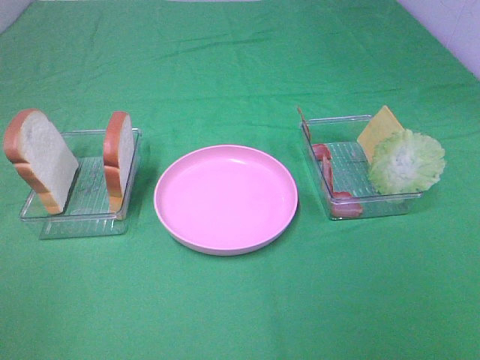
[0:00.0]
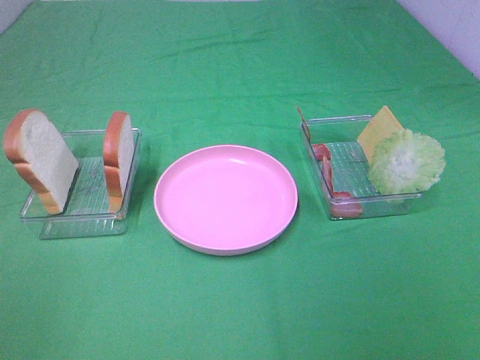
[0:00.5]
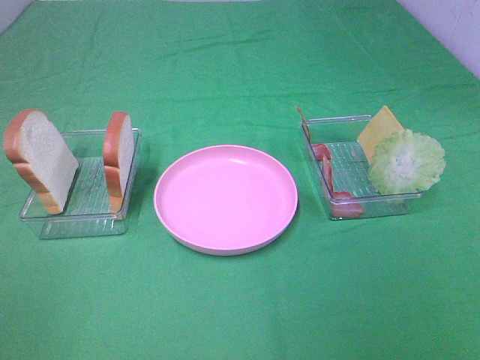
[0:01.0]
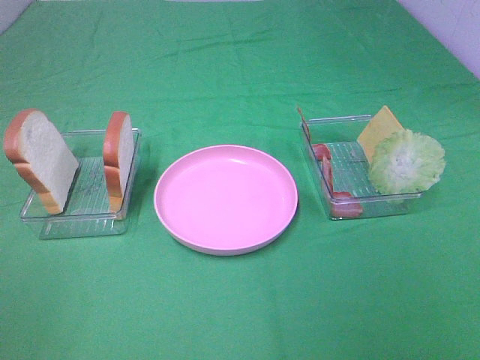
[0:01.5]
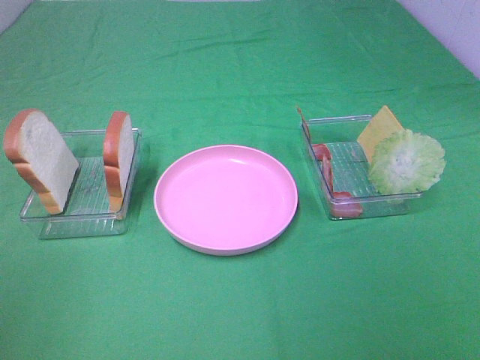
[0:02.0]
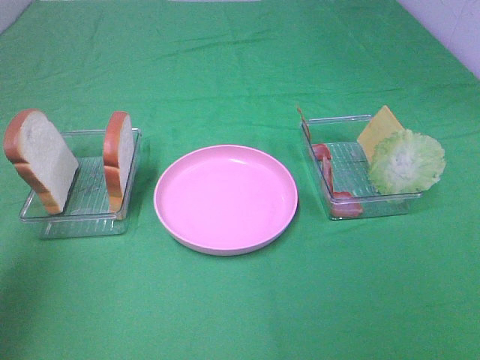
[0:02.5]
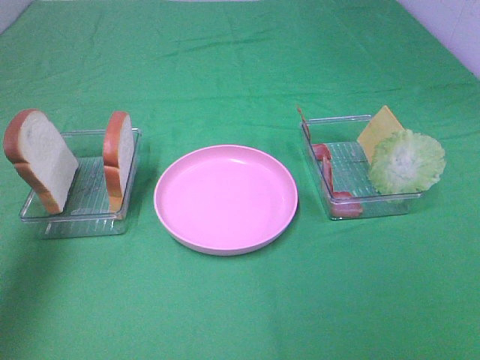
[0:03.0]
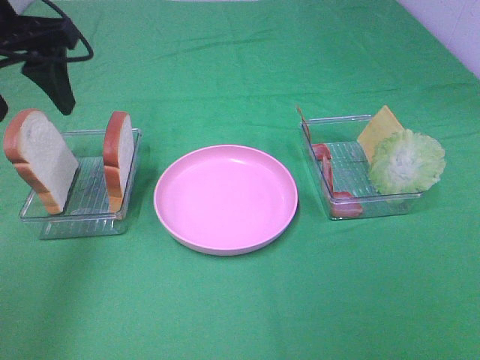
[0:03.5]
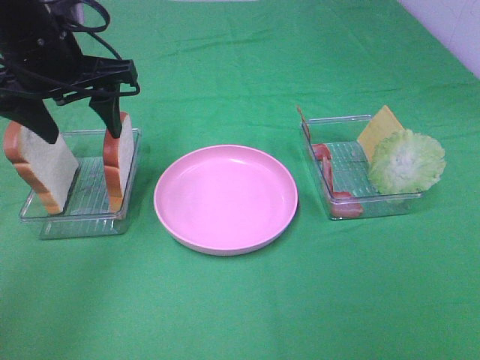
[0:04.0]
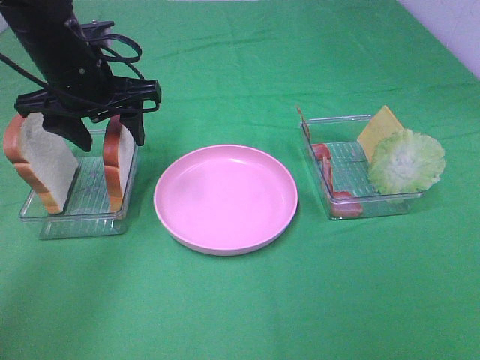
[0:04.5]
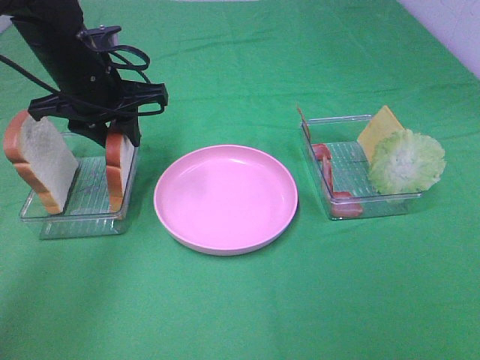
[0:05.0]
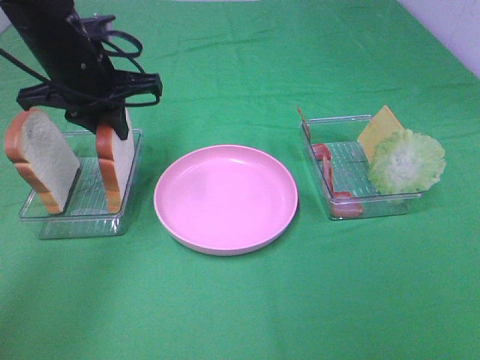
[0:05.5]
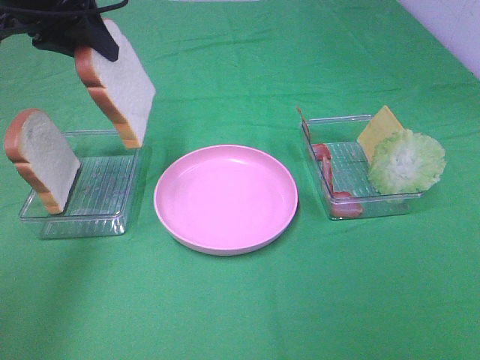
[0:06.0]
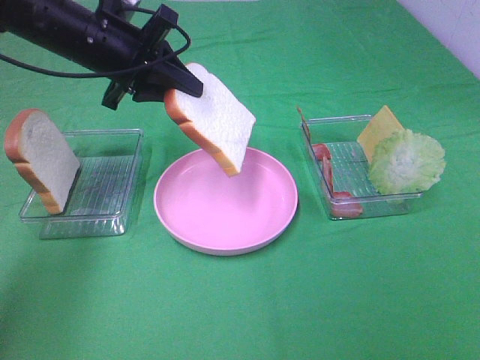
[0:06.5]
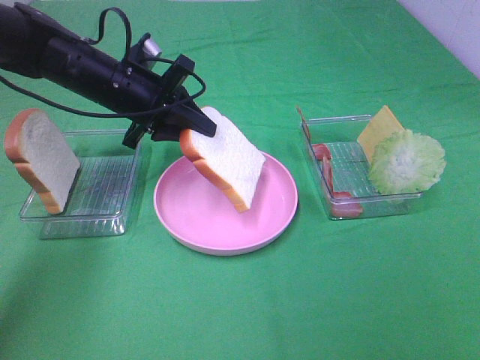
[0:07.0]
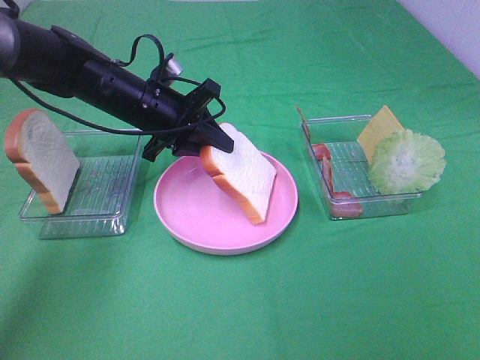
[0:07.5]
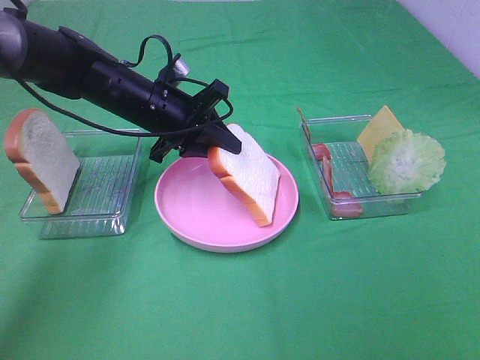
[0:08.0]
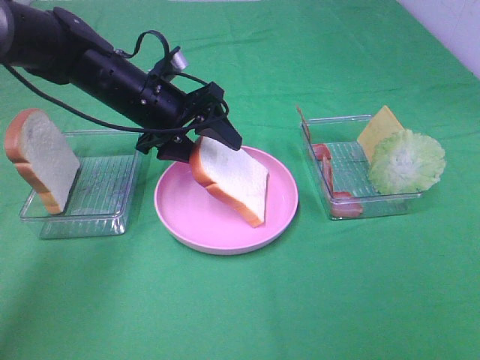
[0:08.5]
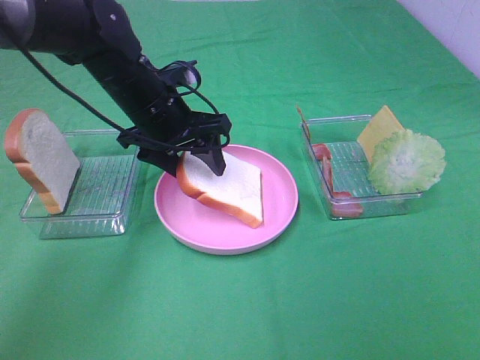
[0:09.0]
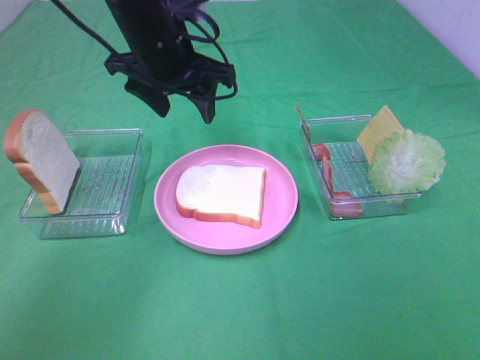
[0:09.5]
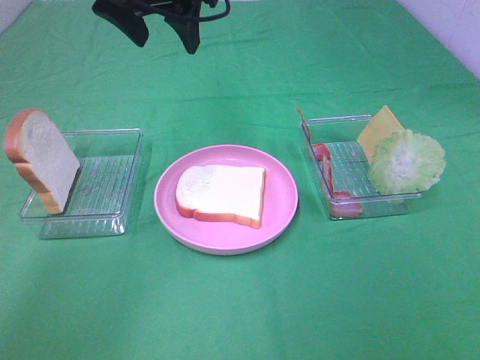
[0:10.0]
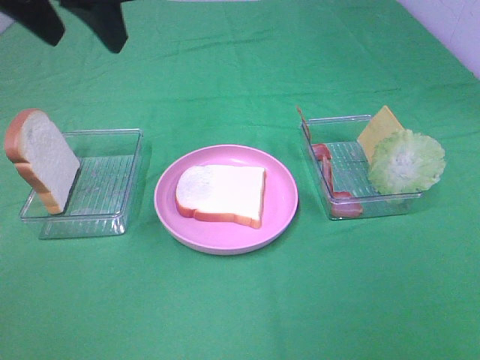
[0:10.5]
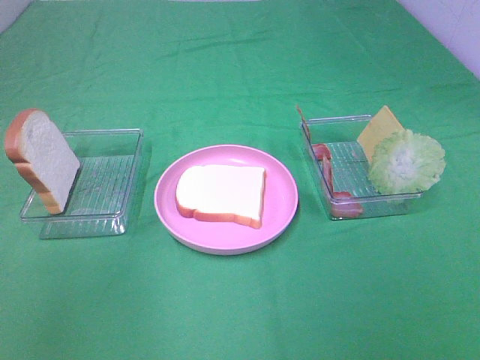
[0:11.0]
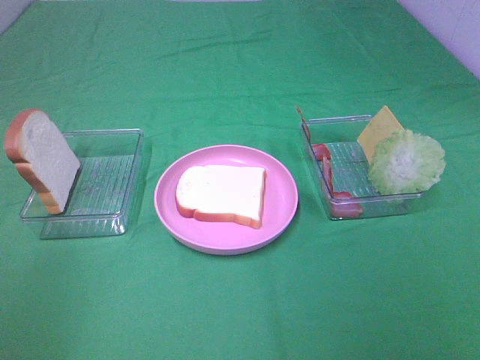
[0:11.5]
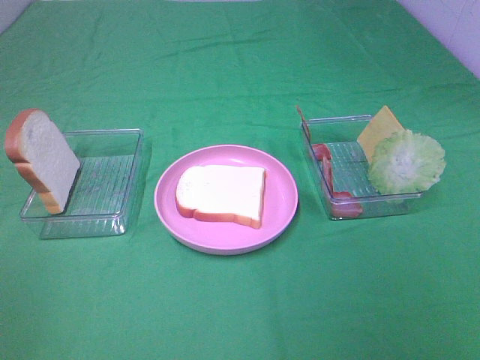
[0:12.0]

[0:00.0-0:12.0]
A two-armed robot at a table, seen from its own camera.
Task of the whole recording: Make sandwiches.
Step, 0:00.0 to 0:05.0: Left hand:grab the bread slice.
Step, 0:05.5 to 0:09.0: Left hand:place the bread slice on the plate.
0:02.0 to 0:04.0: The left gripper shifts some 30 cm forward.
0:04.0 to 0:06.0: The left gripper shifts approximately 5 cm upward, and closes.
0:06.0 to 0:08.0: The left gripper goes about 20 cm downward and to the right.
0:08.0 to 0:10.0: The left gripper moves upward, approximately 20 cm, and opens.
0:10.0 to 0:12.0: The left gripper is displaced backward and to the left by approximately 40 cm.

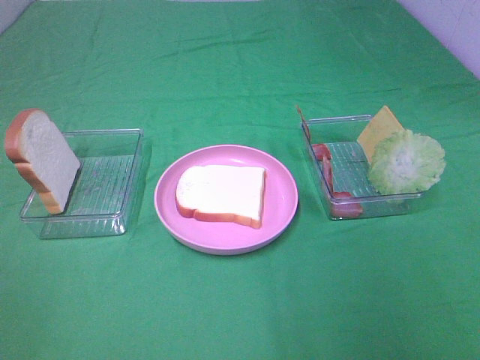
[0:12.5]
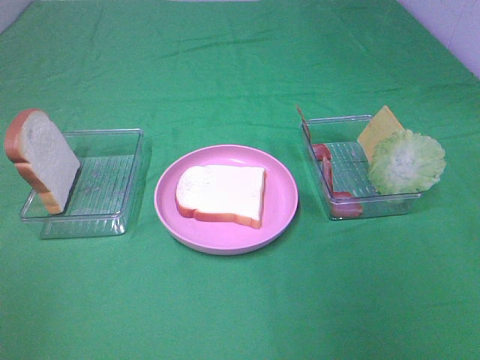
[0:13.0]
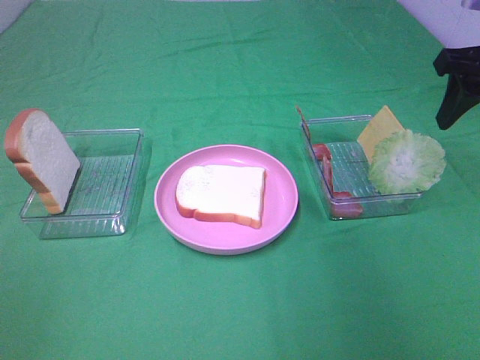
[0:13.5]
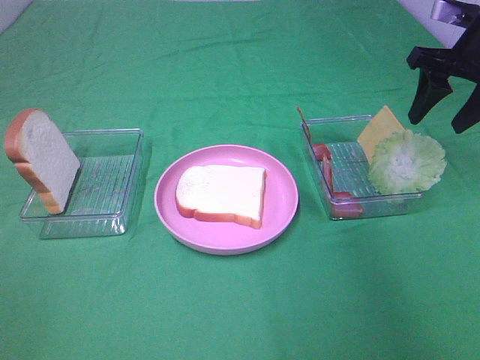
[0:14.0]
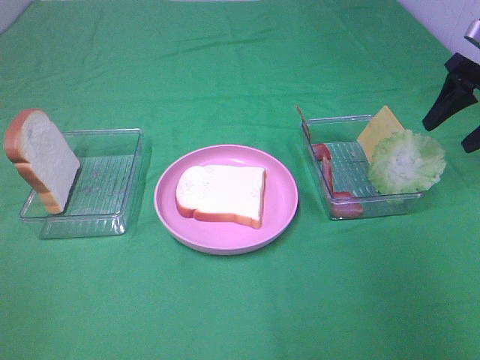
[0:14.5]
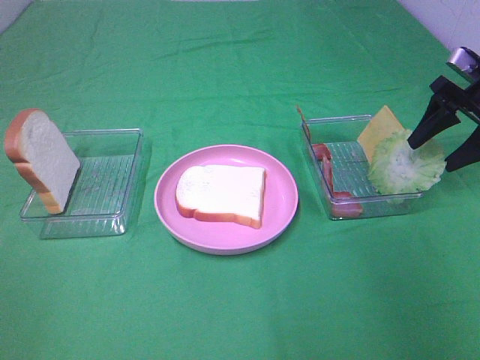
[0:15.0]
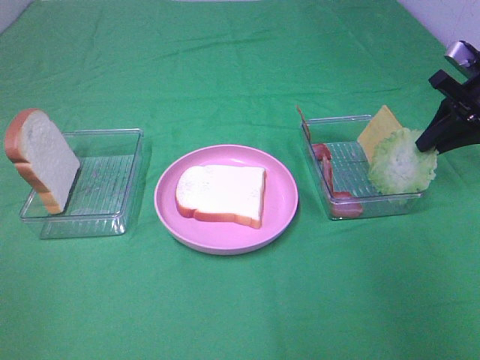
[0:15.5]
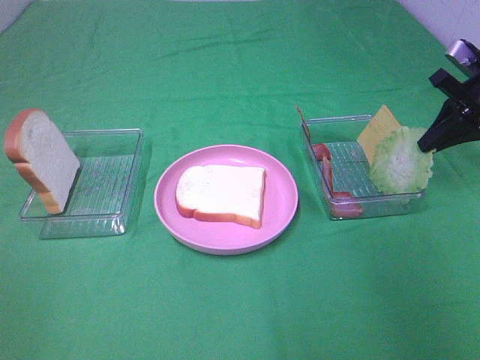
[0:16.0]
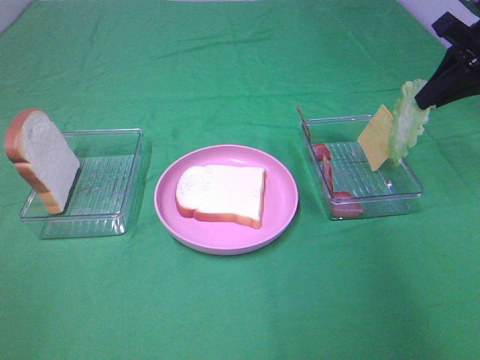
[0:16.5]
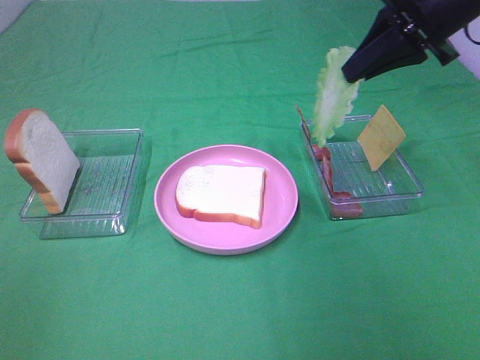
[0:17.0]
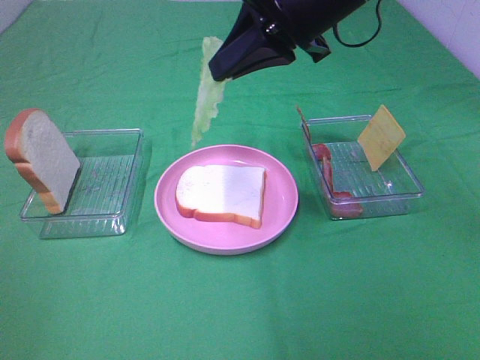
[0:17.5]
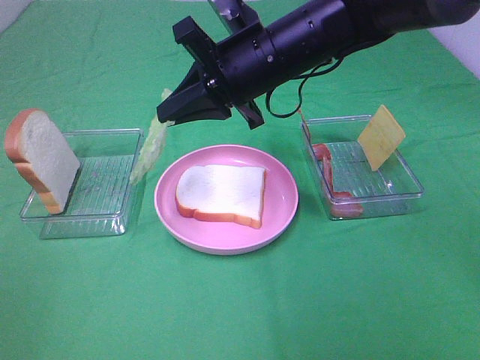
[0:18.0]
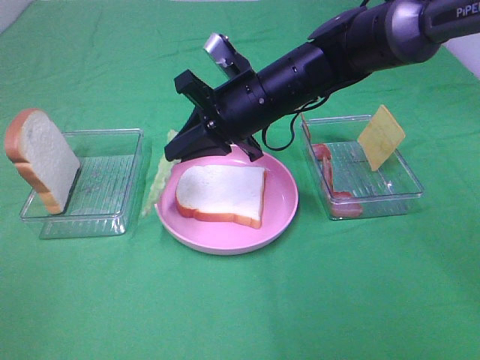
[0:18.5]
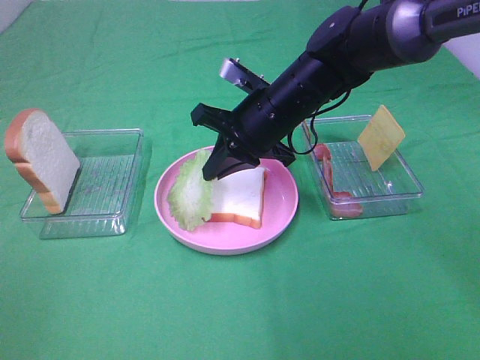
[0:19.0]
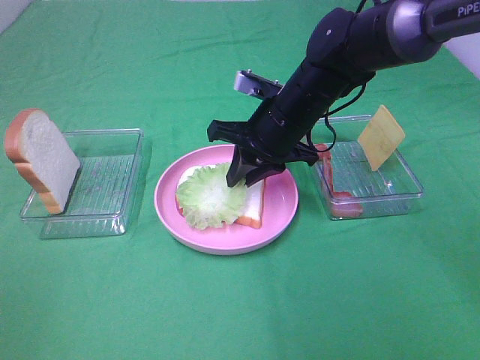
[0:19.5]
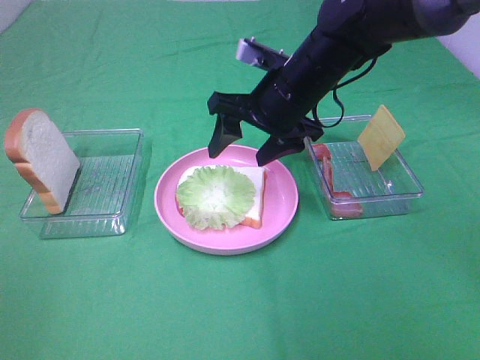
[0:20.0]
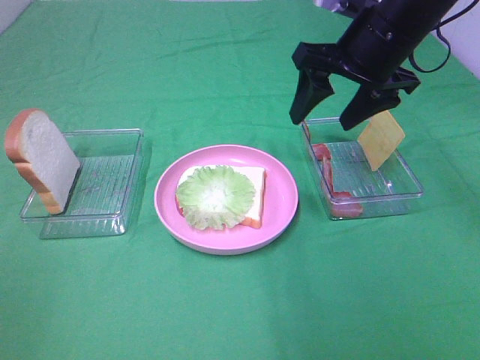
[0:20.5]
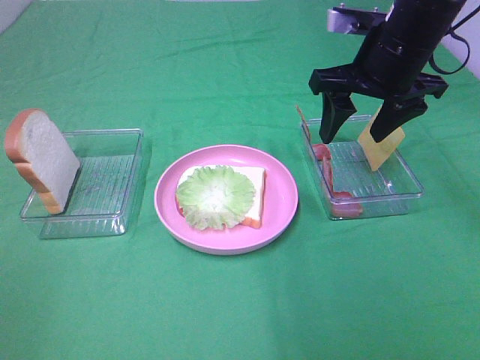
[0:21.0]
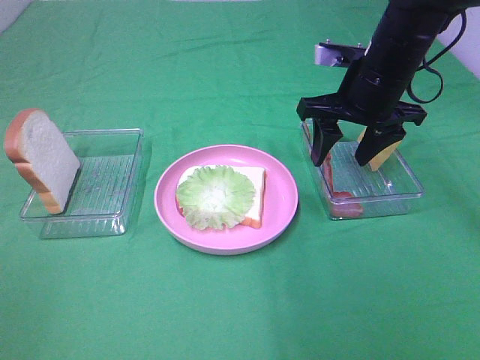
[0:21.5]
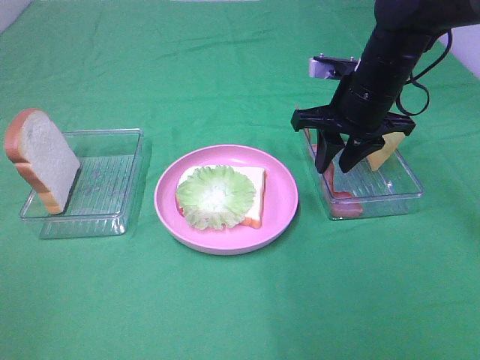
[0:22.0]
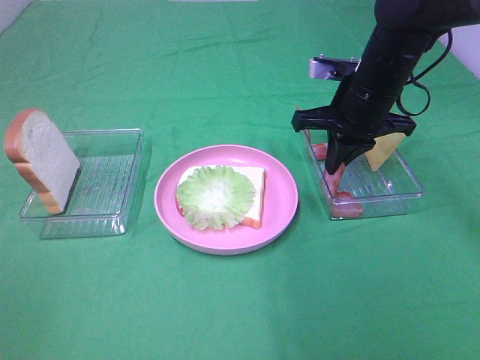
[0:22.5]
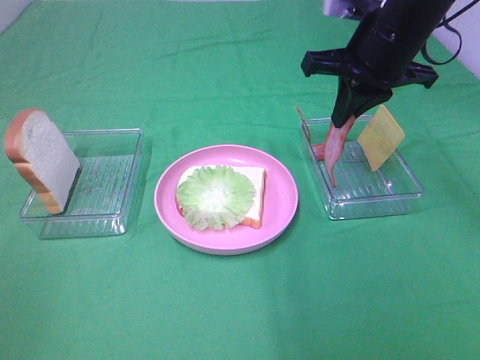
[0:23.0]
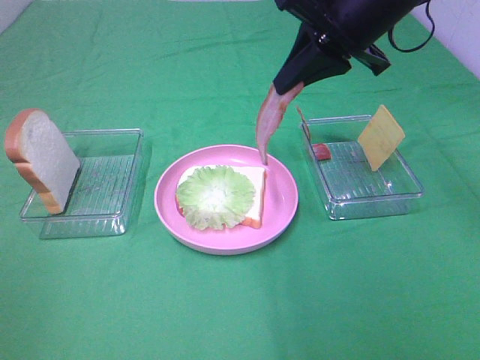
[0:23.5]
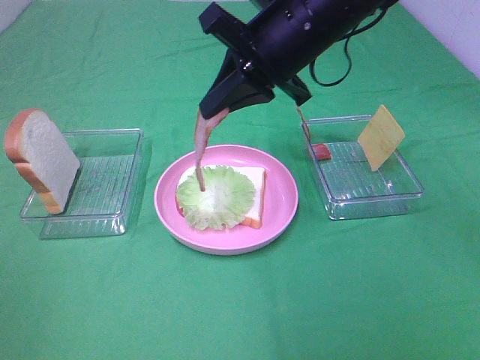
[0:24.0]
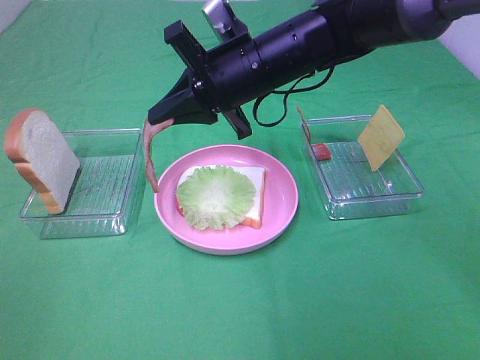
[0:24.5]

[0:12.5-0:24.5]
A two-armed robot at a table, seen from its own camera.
Task of the whole recording: Make sandwiches.
Step, 0:12.5 to 0:16.0: Right hand:grab the lettuce slice.
Step, 0:16.5 to 0:19.5: Right hand:place the lettuce slice on the bread slice.
Step, 0:20.0 to 0:22.5: Right hand:grab the bacon.
0:12.5 to 0:14.5: The right gripper moves forward, roughly 30 cm.
0:14.5 to 0:16.5: The right gripper travels upward by about 5 cm, and closes up.
0:16.5 to 0:18.5: The right gripper heads to the left, covering some 25 cm.
0:18.5 to 0:20.5: The right gripper shifts some 15 cm to the right and upward, and opens its fingers.
0:20.5 to 0:22.5: The right gripper heads downward, covering roughly 10 cm, and closes.
0:22.5 to 0:24.5: The right gripper heads to the left, covering some 15 cm.

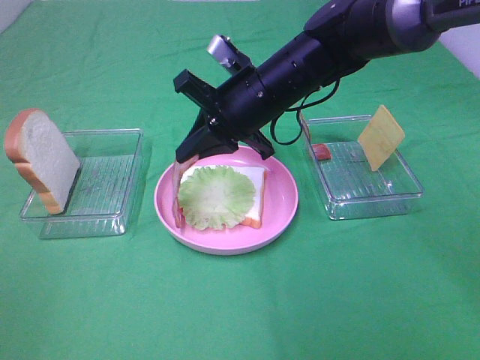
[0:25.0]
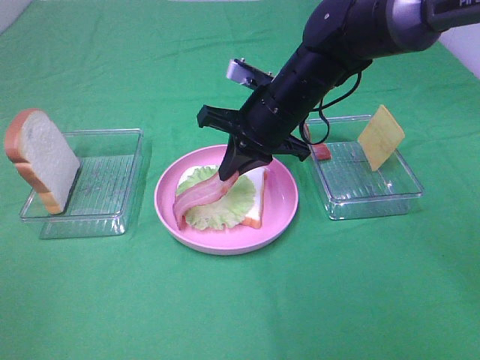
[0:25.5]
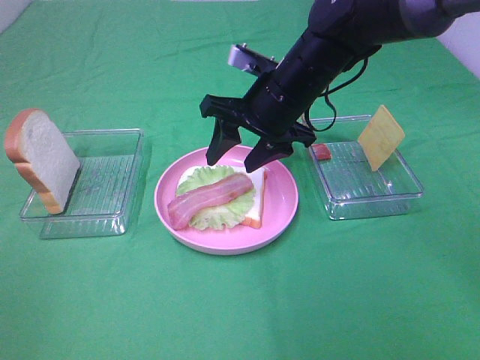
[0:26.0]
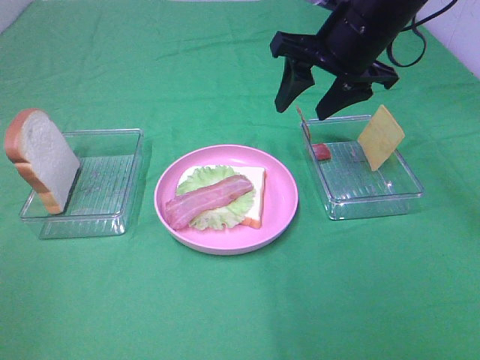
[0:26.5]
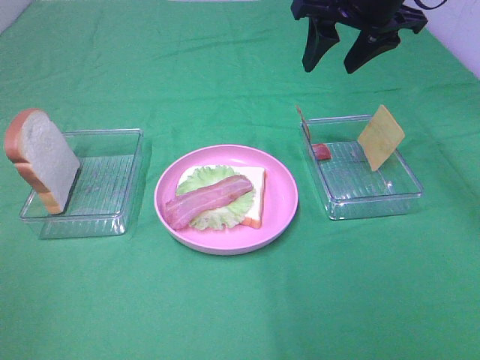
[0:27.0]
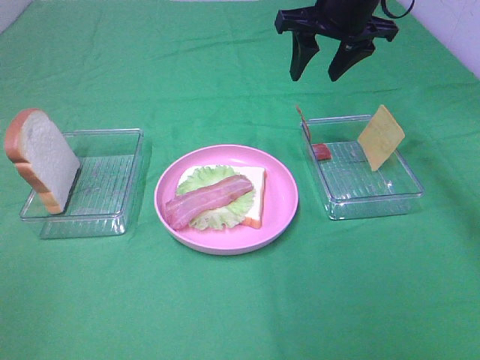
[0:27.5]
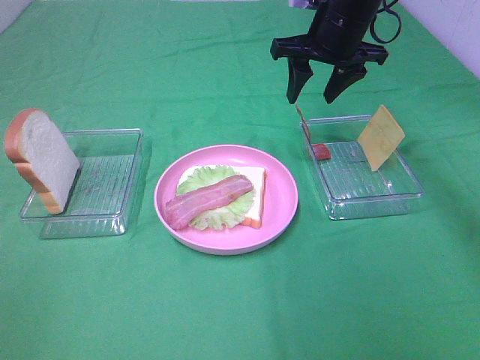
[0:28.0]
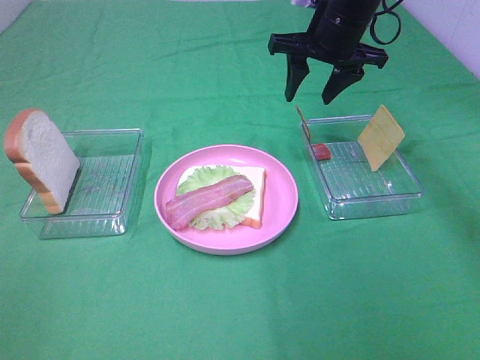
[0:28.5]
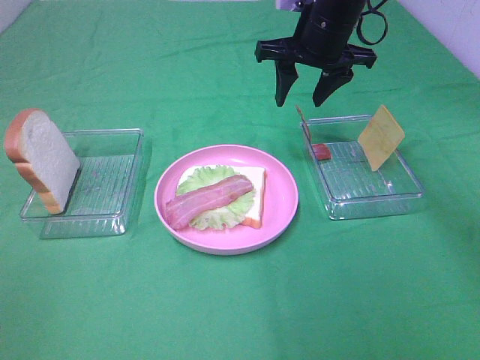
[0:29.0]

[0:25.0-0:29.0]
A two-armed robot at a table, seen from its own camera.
Task of the whole recording: Make sandwiches.
0:25.0 to 0:27.0: The right gripper heads upward and to the right, covering roughly 15 cm, and opens up.
0:27.0 to 0:29.0: The right gripper is displaced downward by about 5 cm.
